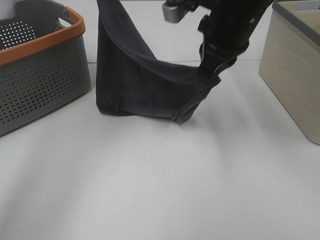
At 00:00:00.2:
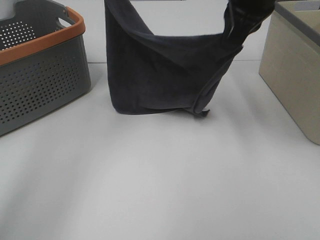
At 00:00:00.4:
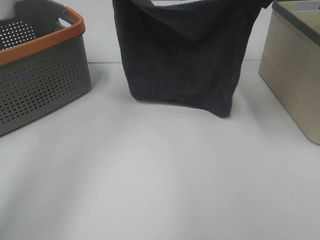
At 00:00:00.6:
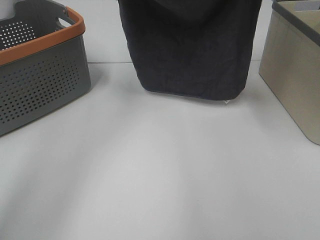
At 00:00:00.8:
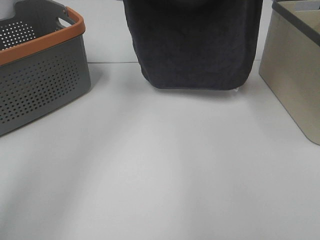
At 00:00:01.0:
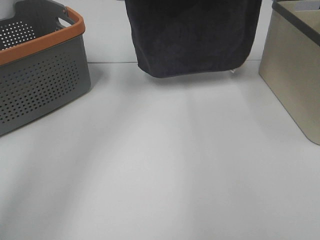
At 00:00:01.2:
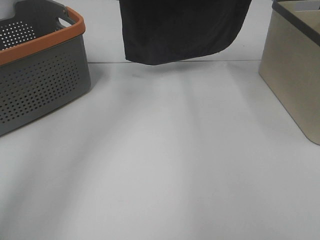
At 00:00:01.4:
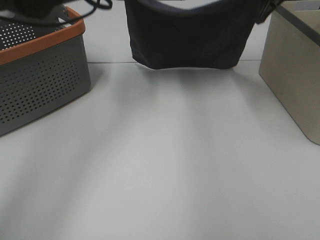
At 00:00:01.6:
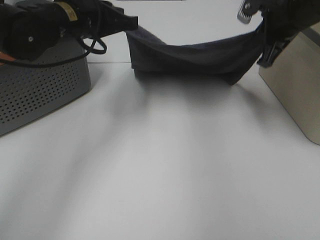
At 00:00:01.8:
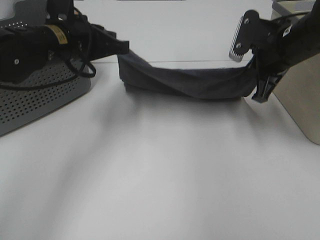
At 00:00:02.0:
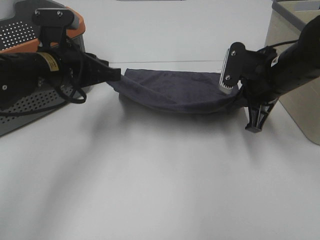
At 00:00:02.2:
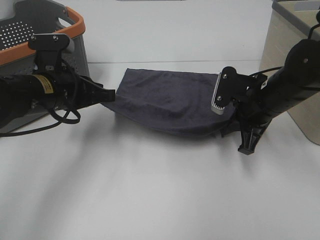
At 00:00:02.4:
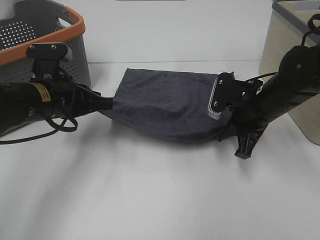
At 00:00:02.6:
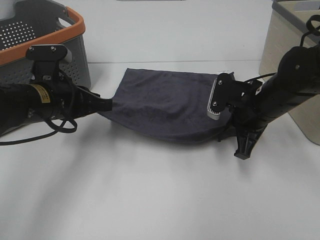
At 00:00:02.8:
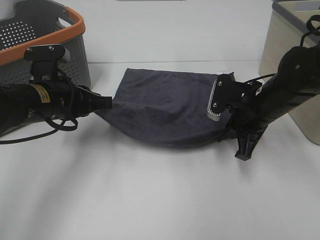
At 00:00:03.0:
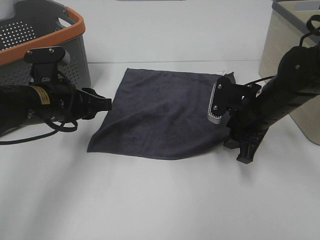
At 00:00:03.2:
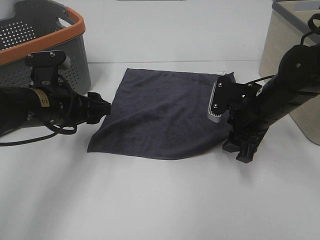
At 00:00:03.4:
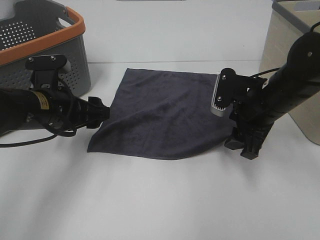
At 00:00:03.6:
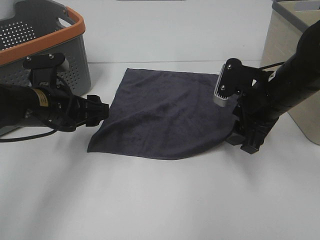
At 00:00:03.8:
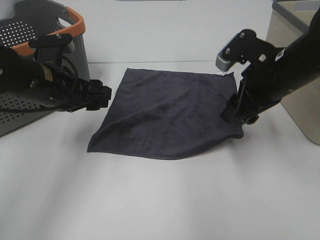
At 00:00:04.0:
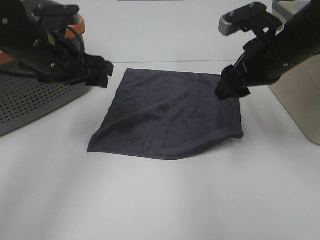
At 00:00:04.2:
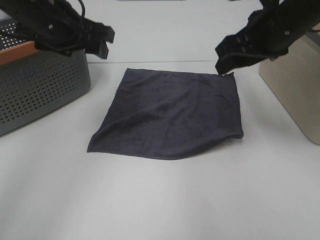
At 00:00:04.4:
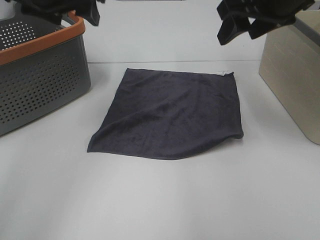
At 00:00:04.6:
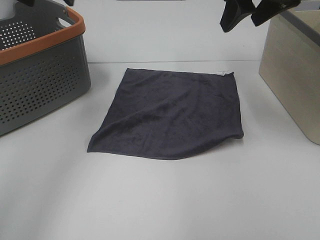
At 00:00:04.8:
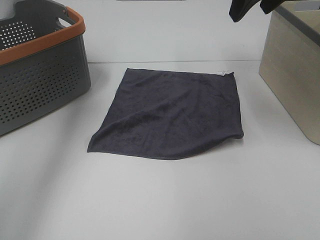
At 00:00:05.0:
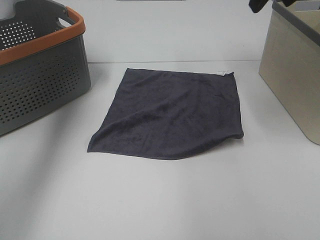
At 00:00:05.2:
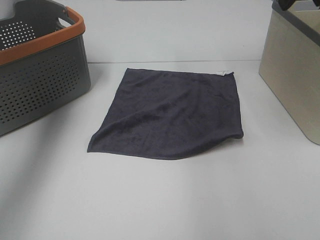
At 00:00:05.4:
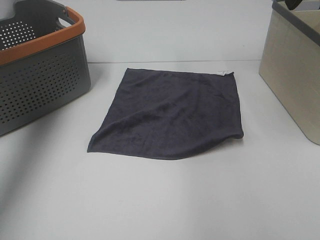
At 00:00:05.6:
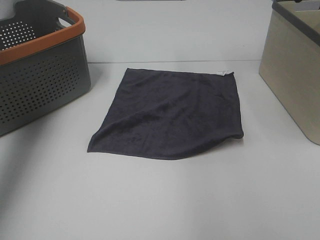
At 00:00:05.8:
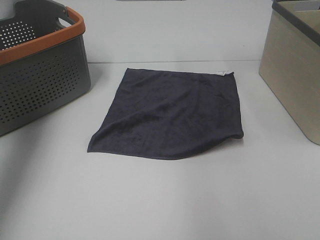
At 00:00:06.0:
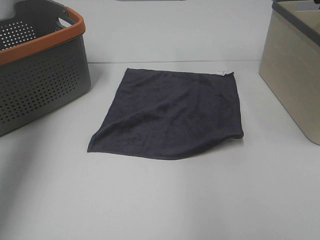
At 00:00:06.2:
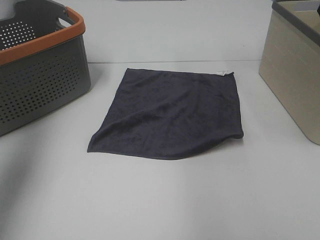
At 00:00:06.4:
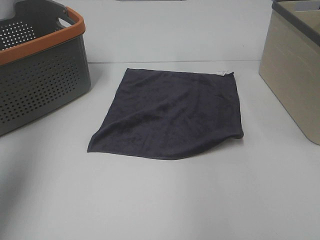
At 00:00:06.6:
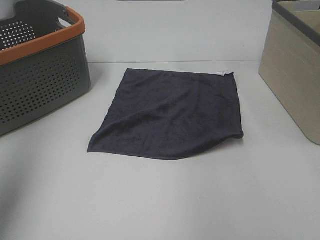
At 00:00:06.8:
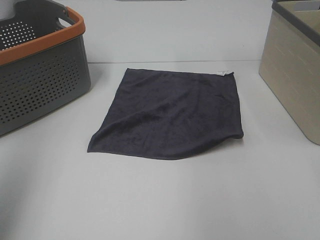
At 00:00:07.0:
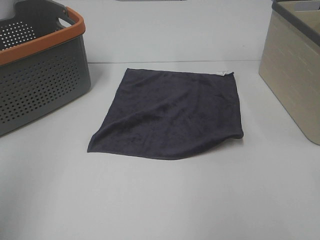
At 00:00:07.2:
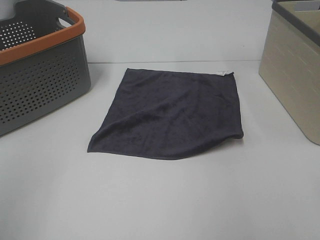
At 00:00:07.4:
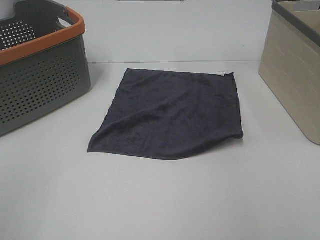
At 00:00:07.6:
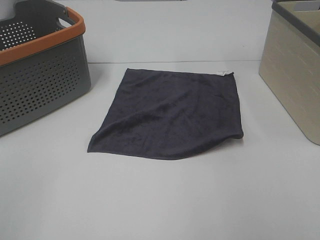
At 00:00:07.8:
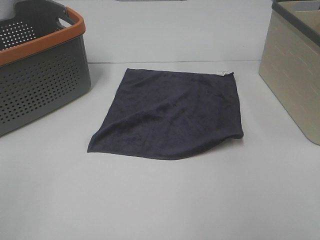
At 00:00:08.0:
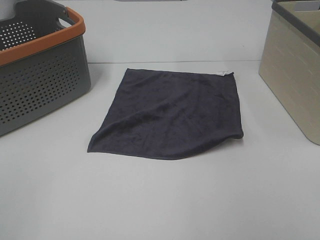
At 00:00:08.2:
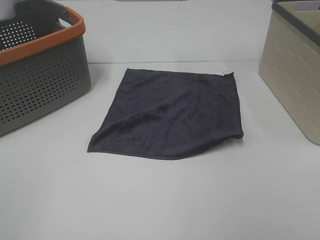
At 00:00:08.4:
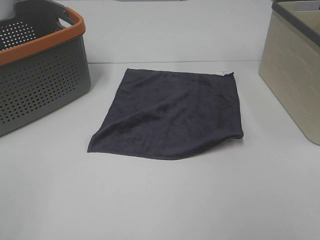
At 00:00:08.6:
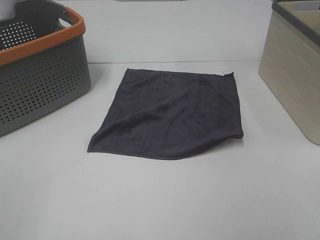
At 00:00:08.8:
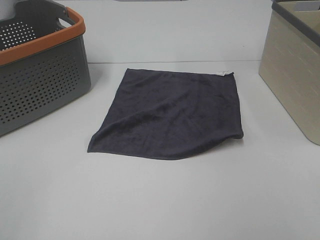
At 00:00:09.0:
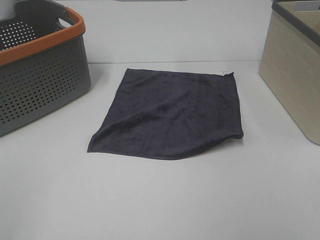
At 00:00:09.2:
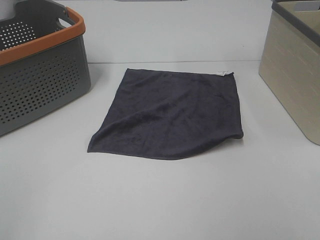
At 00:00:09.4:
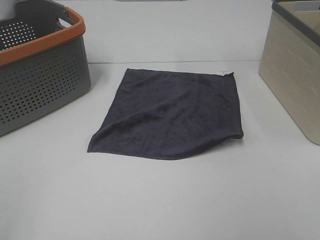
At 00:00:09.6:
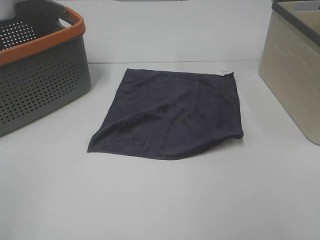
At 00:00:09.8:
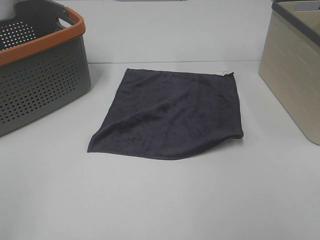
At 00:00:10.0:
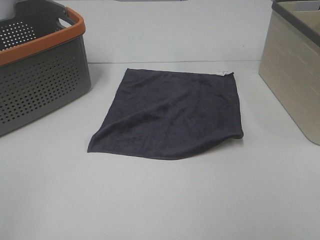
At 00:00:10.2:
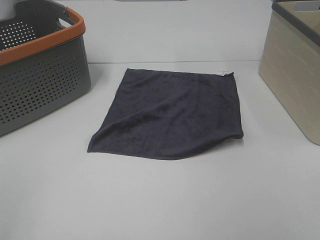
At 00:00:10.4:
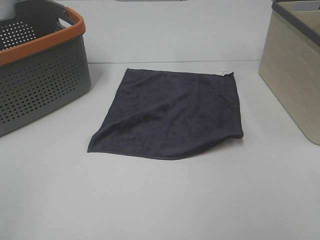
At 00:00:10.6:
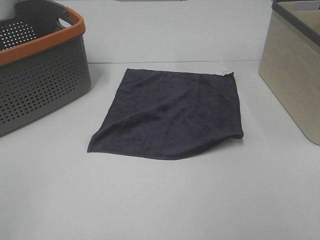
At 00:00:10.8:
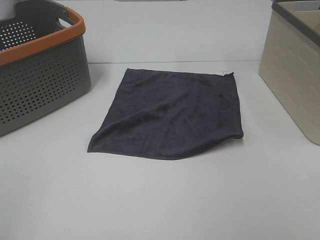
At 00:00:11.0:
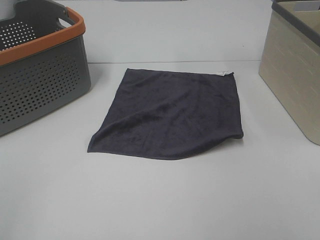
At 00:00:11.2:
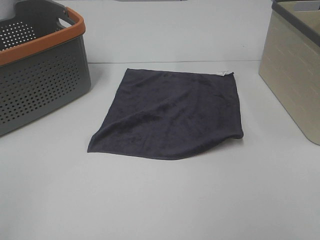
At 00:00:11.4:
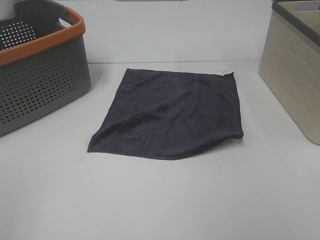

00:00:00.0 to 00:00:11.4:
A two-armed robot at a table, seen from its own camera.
Task of the whole recording: Remove the towel and place it.
00:00:00.0 to 00:00:01.4: The left gripper is displaced downward by roughly 10 cm. The right gripper travels to the right and forward by about 15 cm.
00:00:01.4 to 00:00:02.8: The two grippers go roughly 20 cm downward and backward.
00:00:02.8 to 00:00:04.2: The right gripper goes roughly 15 cm upward, and opens, while the left gripper heads upward and forward, covering roughly 15 cm, and opens up.
00:00:04.2 to 00:00:05.6: The right gripper is displaced upward and to the right by roughly 15 cm. Meanwhile the left gripper moves to the left and upward, approximately 25 cm.
00:00:05.6 to 00:00:07.2: The left gripper moves backward, some 30 cm.
00:00:08.6 to 00:00:11.4: Both grippers stay put.

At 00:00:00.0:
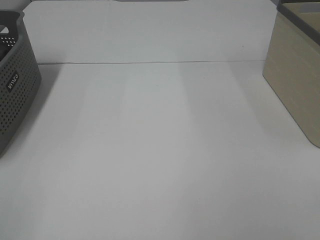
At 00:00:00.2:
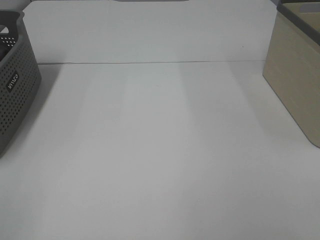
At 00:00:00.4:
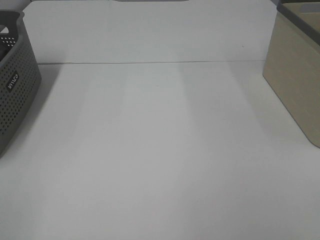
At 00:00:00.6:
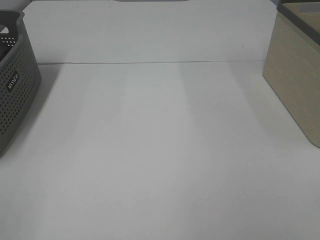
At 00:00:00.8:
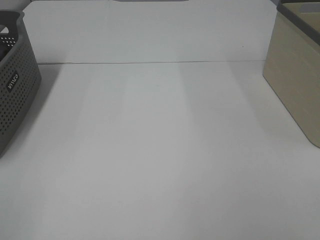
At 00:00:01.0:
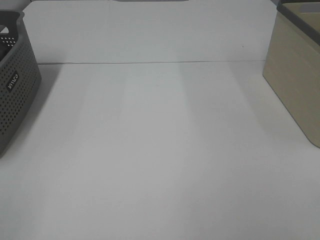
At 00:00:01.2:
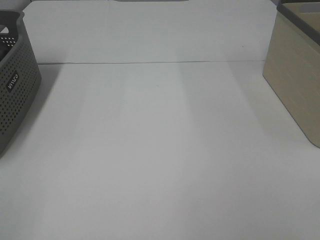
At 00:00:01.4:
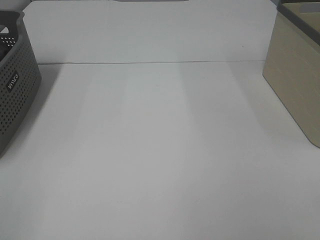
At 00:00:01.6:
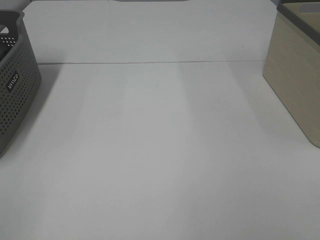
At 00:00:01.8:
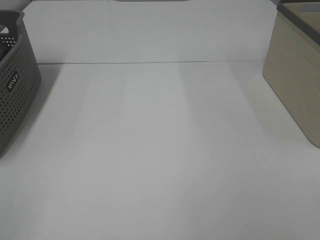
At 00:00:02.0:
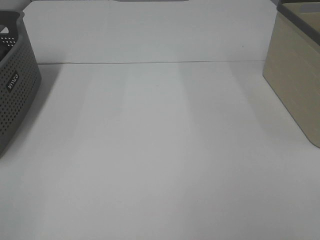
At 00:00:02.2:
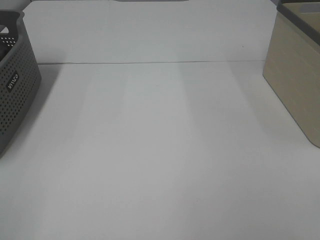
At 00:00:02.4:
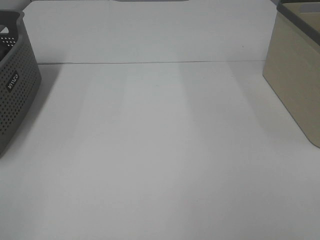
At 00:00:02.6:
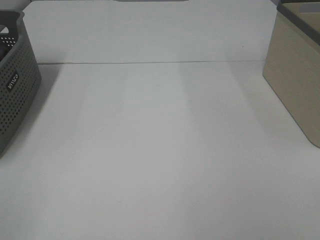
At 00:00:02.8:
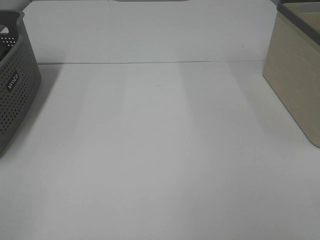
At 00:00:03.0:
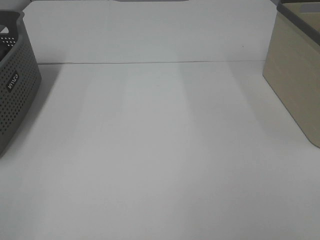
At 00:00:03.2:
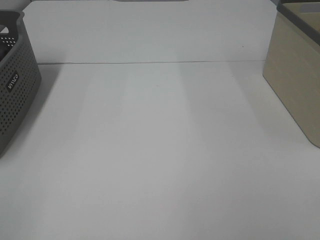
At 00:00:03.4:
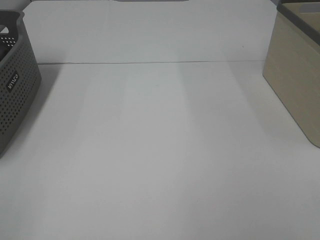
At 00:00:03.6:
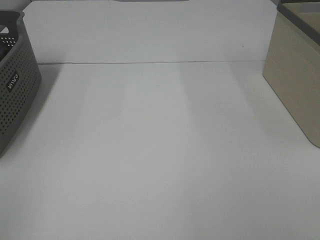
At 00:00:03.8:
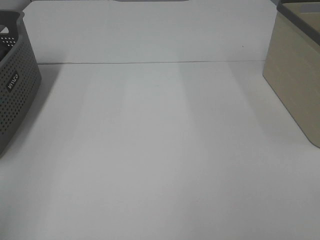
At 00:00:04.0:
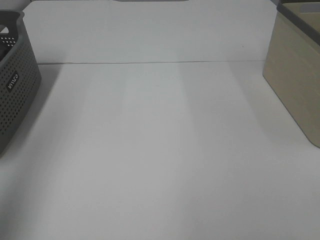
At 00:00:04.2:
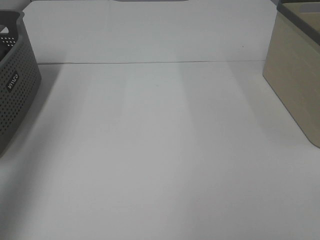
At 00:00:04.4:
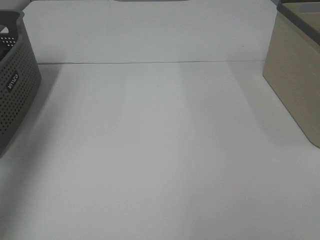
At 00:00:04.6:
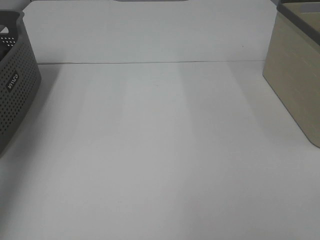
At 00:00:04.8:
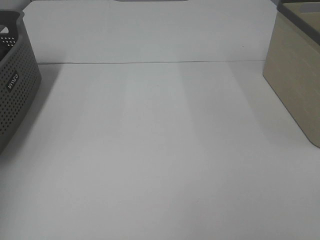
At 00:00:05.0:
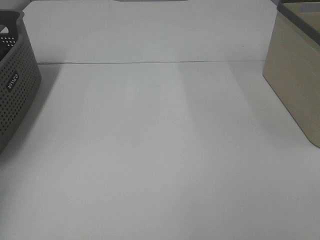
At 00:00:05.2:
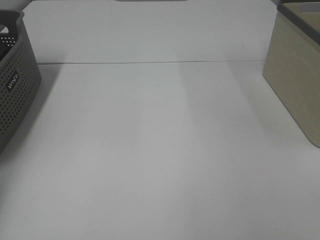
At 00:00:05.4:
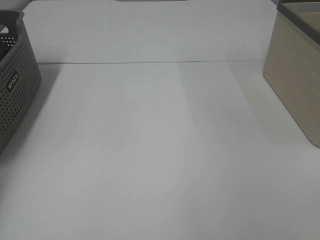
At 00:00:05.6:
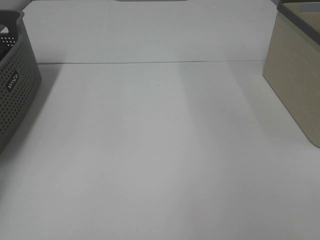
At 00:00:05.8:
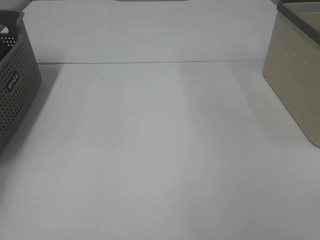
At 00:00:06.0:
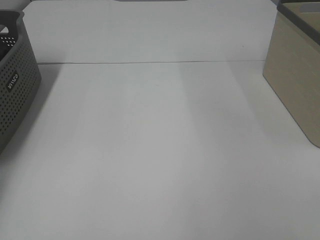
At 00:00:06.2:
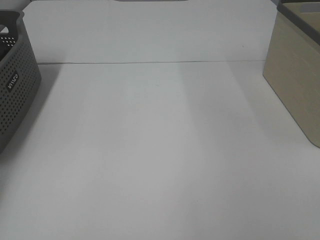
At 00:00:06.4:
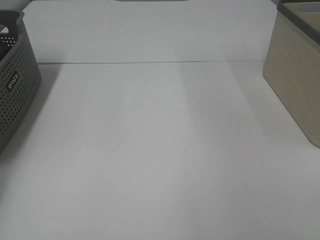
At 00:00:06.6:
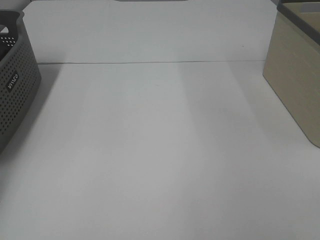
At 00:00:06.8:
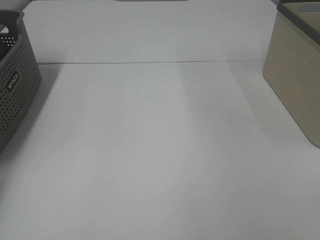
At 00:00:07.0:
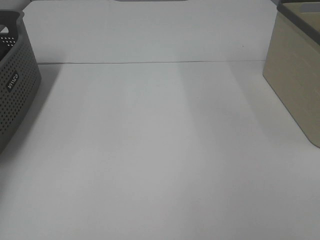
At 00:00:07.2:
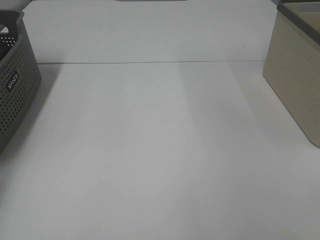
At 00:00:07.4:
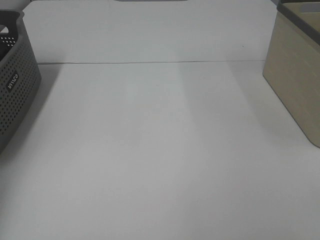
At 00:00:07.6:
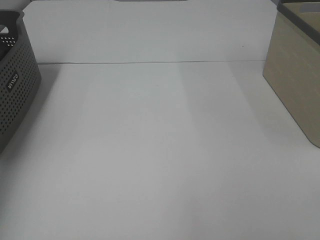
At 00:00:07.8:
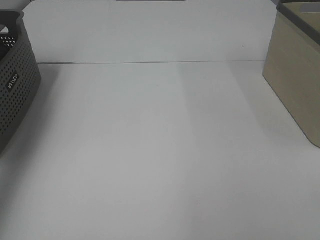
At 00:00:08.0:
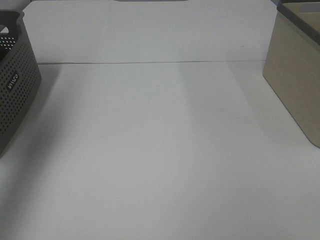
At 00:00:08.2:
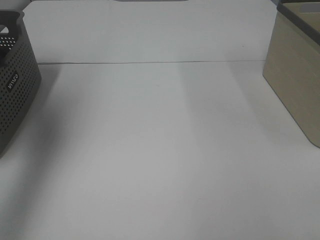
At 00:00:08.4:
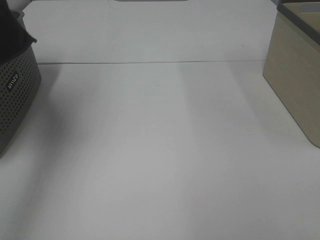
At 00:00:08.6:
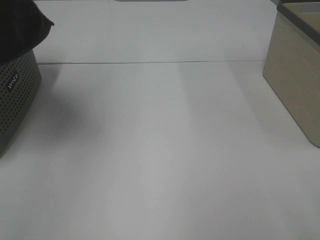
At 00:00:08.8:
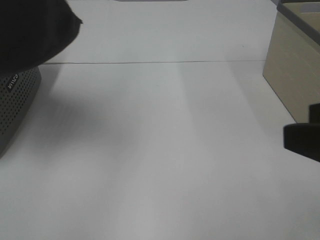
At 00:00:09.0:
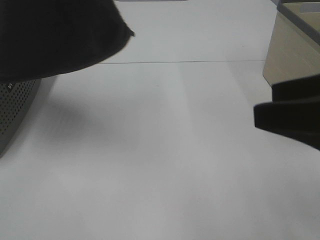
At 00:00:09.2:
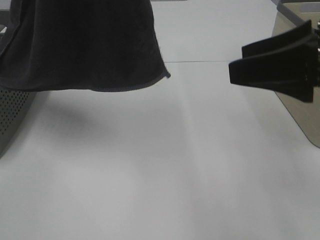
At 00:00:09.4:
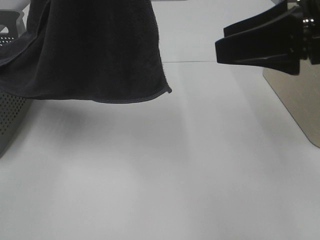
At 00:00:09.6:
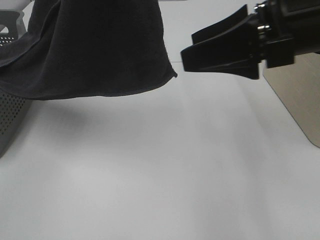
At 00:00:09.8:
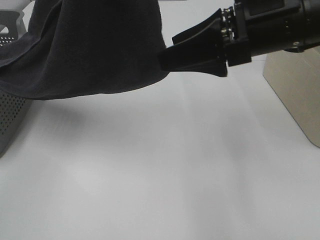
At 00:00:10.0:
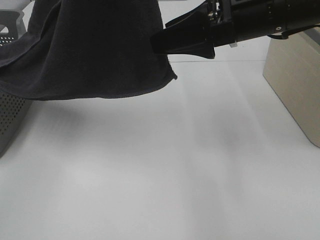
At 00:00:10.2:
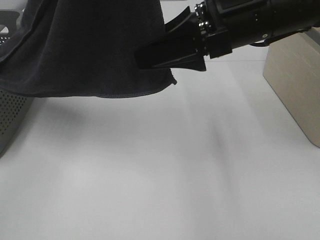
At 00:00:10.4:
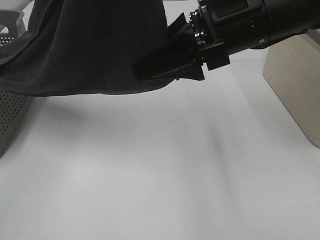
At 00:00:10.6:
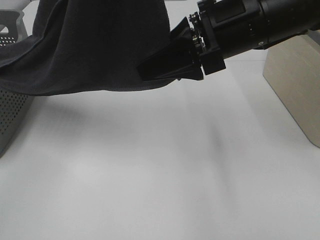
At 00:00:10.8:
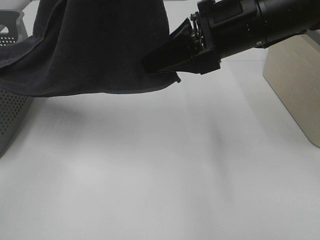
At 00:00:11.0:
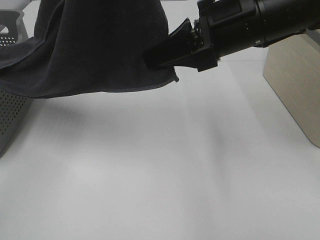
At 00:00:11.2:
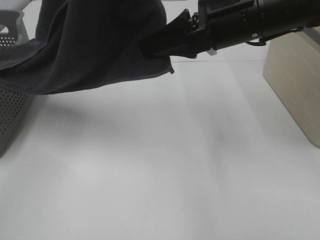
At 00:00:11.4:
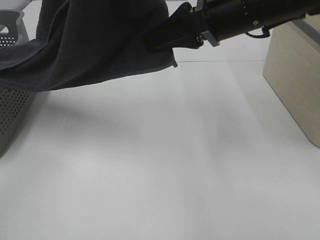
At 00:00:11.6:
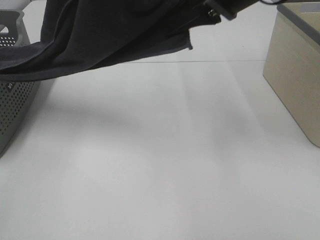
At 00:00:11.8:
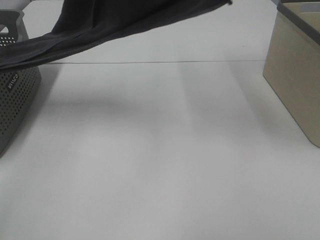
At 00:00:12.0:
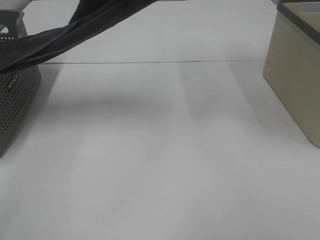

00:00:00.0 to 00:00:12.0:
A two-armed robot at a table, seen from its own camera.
Task of the whole recording: Remove the towel and place it.
Step, 00:00:08.2 to 00:00:11.4: Right hand: grab a corner of the grey towel and straighten it.
00:00:00.0 to 00:00:03.0: The two grippers keep their place.
00:00:03.0 to 00:00:04.4: The left gripper goes approximately 30 cm forward and upward.
00:00:04.4 to 00:00:06.0: The left gripper is displaced forward, downward and to the left by roughly 30 cm, and closes its fingers.
00:00:07.6 to 00:00:09.0: The right gripper is displaced forward and to the left by approximately 15 cm; the left gripper travels to the right, backward and upward by some 35 cm.
00:00:09.0 to 00:00:10.4: The left gripper heads to the right, covering roughly 5 cm, while the right gripper heads forward and to the left, covering roughly 20 cm.
00:00:10.4 to 00:00:12.0: The left gripper goes roughly 10 cm forward. Meanwhile the right gripper moves upward, roughly 20 cm, and closes its fingers.
